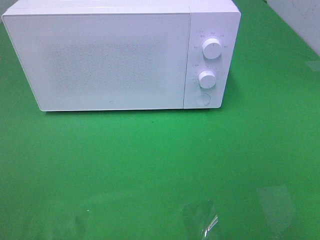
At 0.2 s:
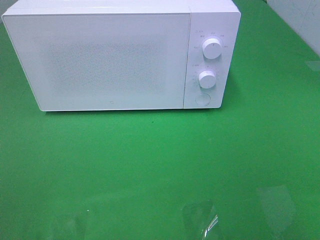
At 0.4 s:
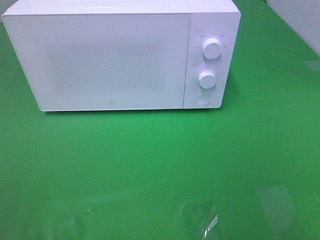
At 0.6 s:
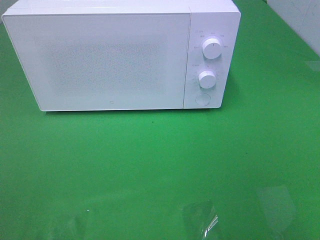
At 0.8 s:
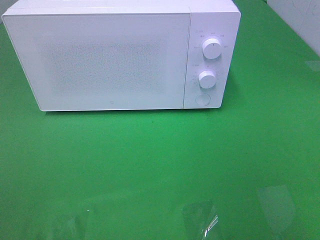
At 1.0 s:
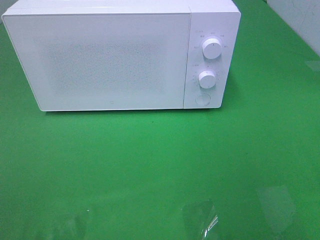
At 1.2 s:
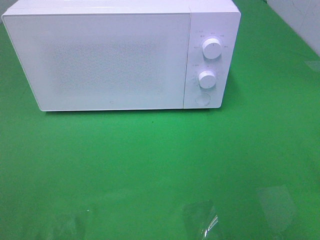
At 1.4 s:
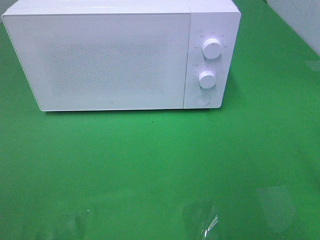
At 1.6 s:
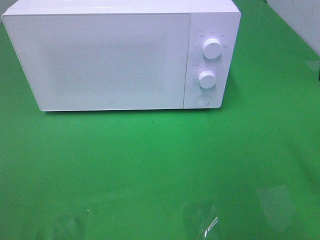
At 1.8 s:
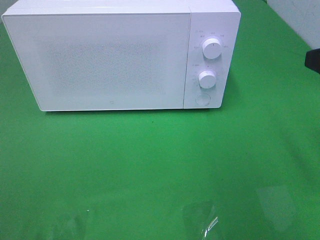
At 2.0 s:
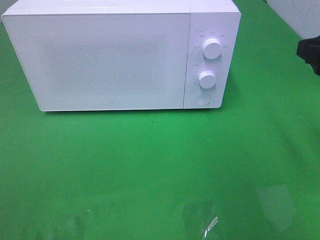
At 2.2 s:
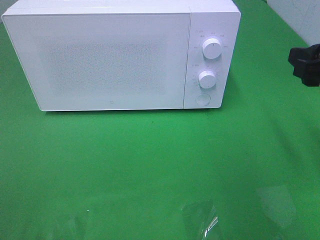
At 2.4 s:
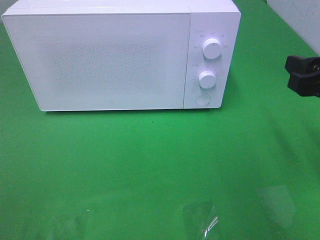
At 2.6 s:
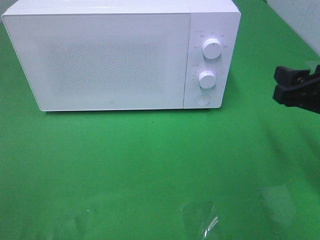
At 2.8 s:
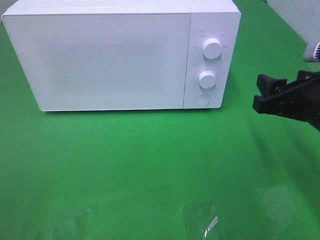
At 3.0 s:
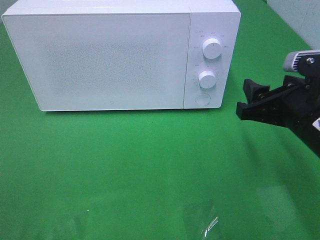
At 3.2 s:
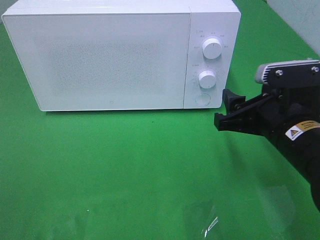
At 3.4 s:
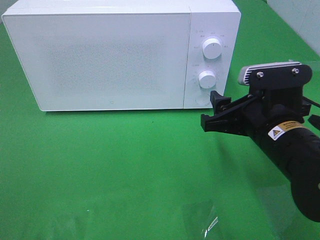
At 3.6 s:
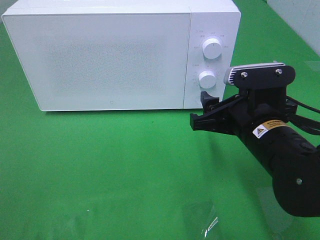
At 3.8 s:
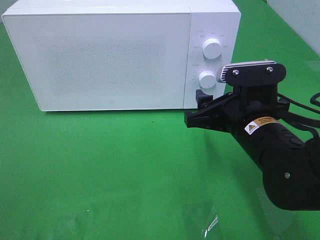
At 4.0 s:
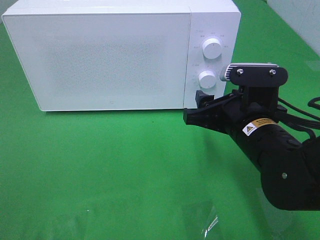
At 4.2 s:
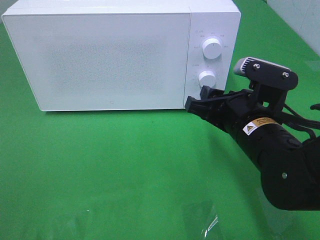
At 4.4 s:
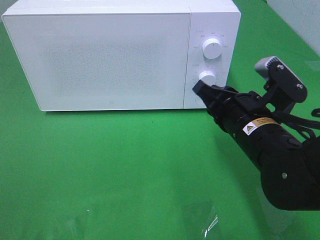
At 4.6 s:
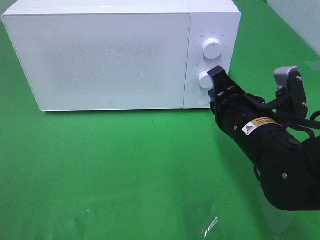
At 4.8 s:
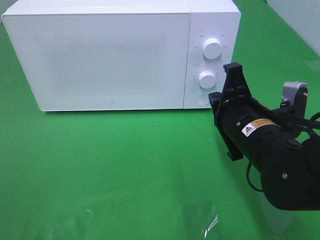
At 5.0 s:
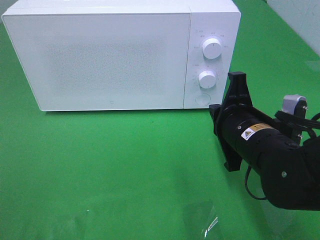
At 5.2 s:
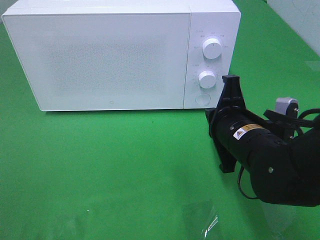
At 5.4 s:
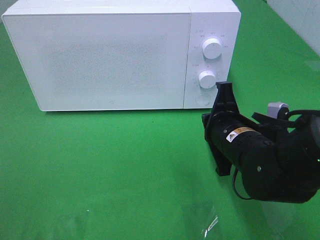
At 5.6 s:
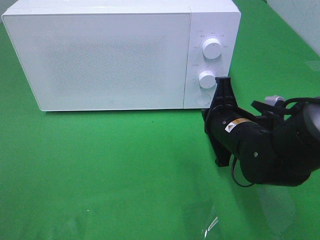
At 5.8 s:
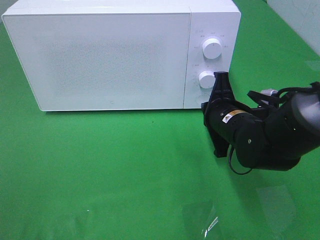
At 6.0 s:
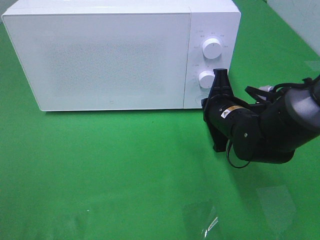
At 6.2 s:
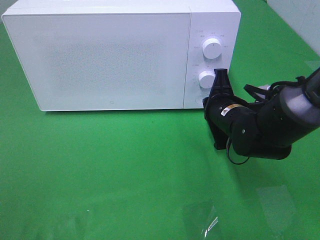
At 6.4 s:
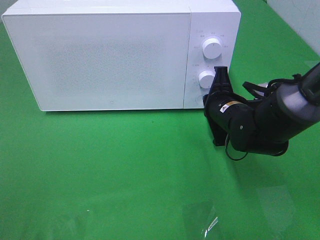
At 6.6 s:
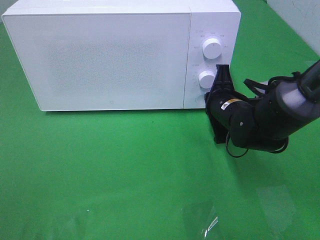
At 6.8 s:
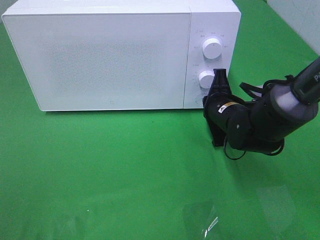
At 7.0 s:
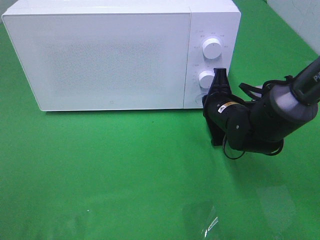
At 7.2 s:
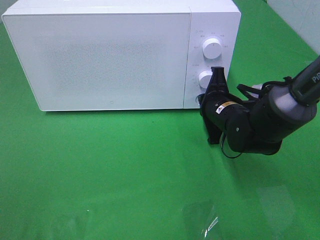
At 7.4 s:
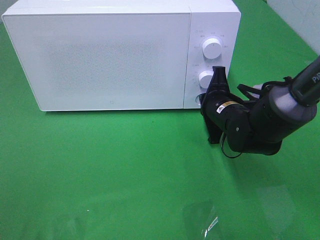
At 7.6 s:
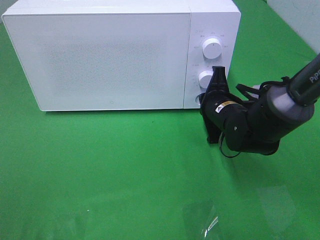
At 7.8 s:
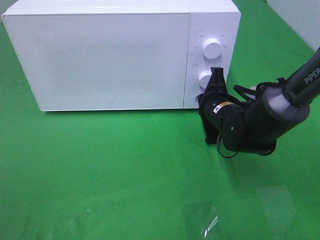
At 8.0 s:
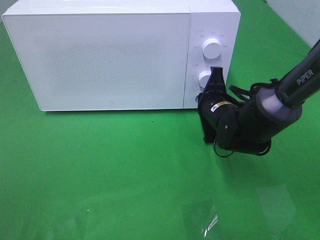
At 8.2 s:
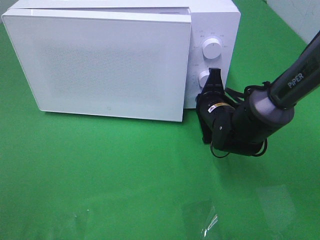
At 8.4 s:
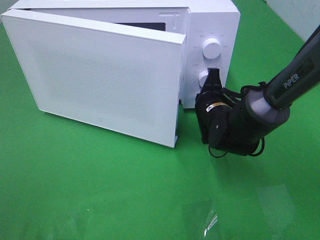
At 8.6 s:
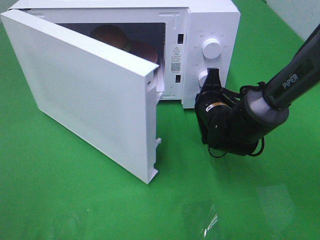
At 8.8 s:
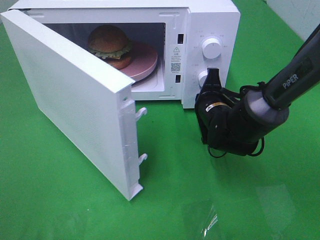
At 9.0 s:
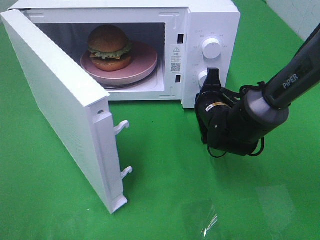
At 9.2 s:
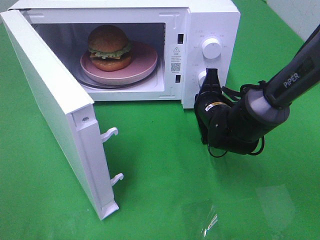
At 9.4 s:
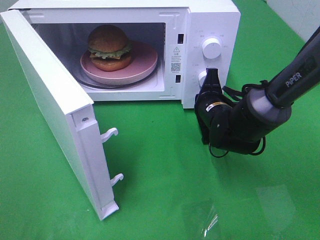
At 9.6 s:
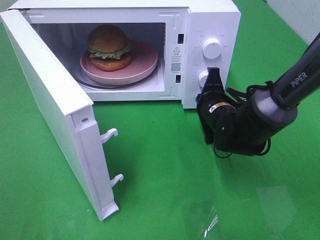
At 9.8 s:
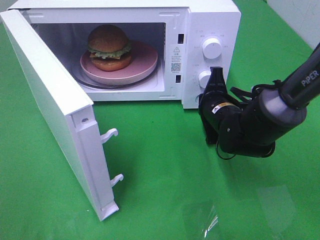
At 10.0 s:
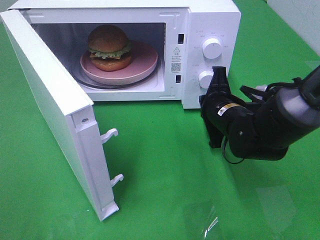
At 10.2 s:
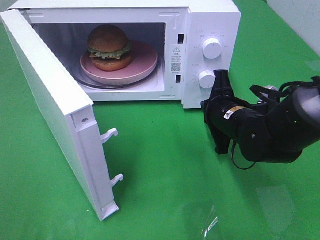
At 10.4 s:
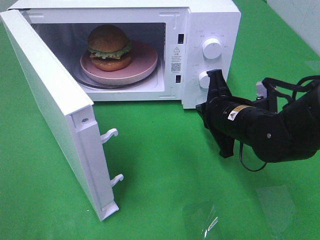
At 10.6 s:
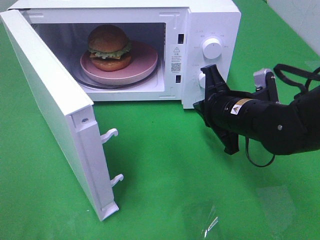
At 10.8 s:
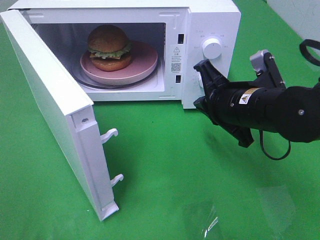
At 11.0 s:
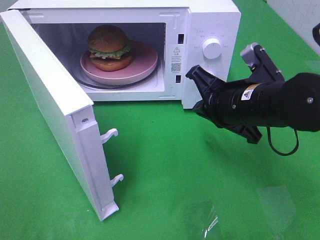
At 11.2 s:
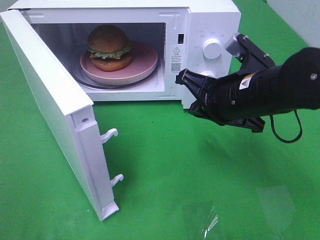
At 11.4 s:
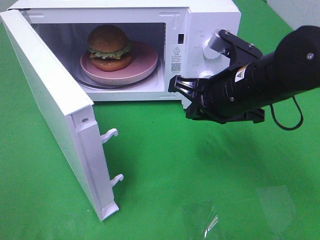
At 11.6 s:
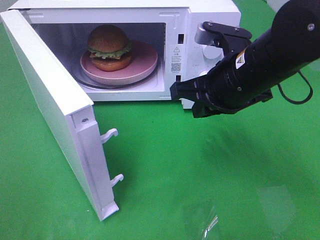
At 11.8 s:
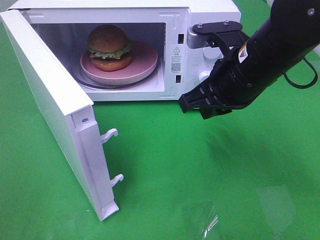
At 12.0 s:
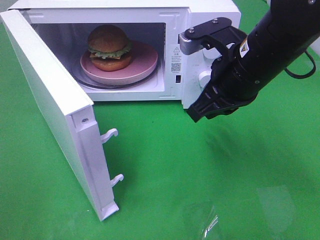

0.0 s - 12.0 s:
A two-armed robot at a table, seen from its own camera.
Task of the whole recording: Heat the burger.
Step, 0.0 s - 10.0 s: Right hand: press the switch.
1.6 s - 3.0 s: The right gripper goes roughly 15 cm downward, to the left and forward.
3.0 s - 4.4 s: The right gripper heads to the left, covering roughly 5 cm, and closes up.
4.4 s - 6.0 s: The right gripper shifts some 10 cm forward and downward.
6.0 s - 7.6 s: The grippers make only small movements.
9.0 s - 10.4 s: The right gripper shifts roughly 5 cm backward.
10.4 s - 12.0 s: The right gripper is displaced upward by roughly 10 cm.

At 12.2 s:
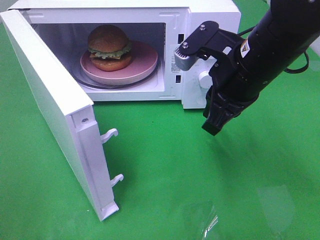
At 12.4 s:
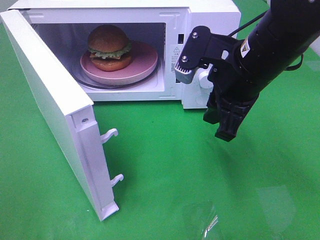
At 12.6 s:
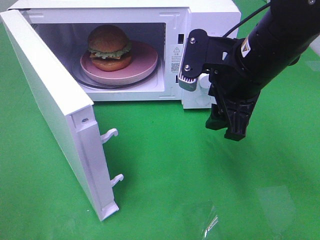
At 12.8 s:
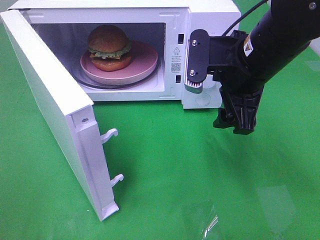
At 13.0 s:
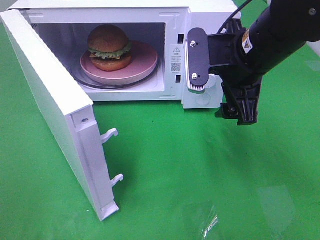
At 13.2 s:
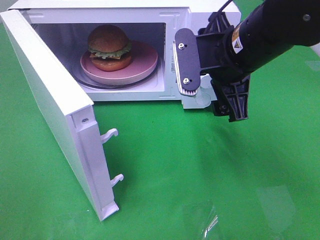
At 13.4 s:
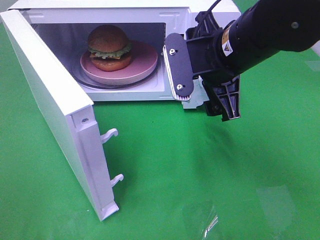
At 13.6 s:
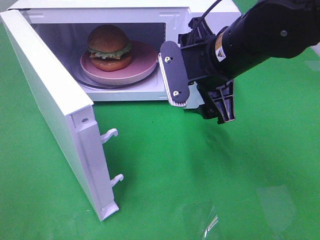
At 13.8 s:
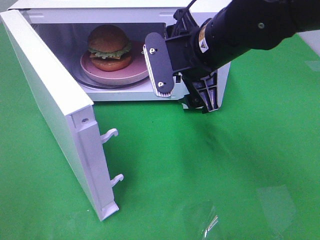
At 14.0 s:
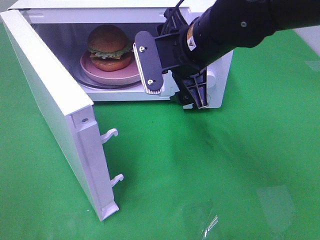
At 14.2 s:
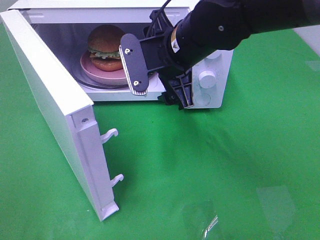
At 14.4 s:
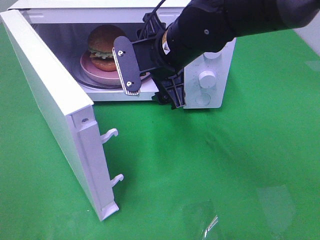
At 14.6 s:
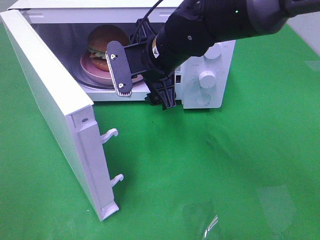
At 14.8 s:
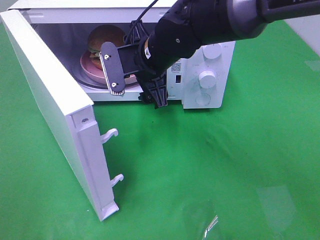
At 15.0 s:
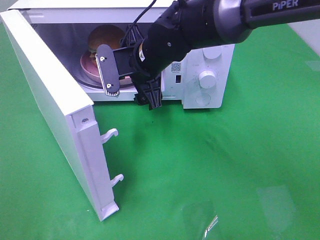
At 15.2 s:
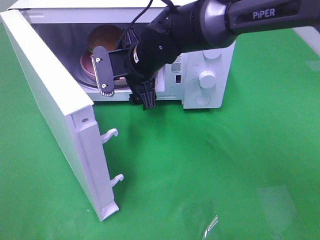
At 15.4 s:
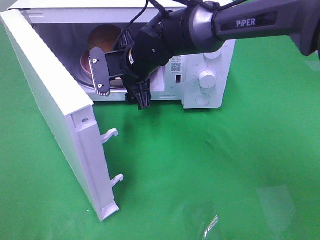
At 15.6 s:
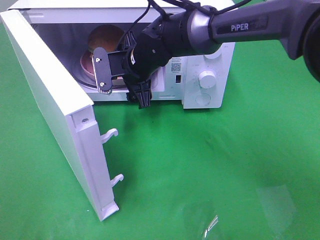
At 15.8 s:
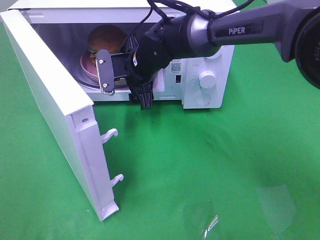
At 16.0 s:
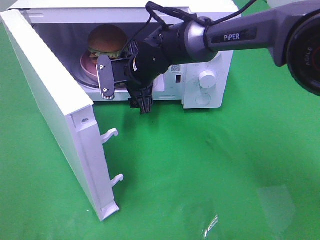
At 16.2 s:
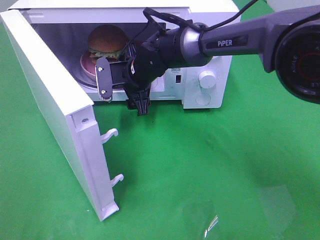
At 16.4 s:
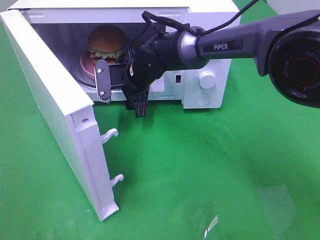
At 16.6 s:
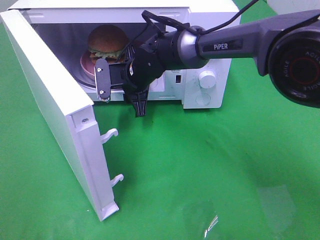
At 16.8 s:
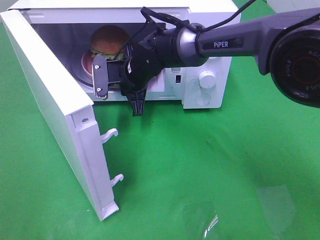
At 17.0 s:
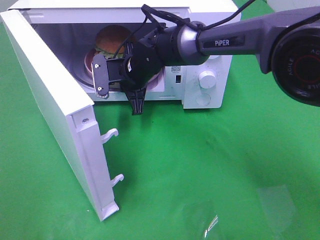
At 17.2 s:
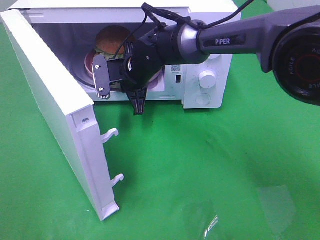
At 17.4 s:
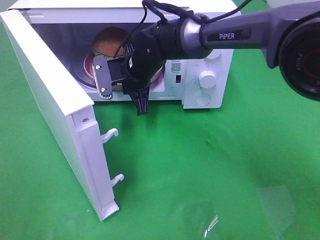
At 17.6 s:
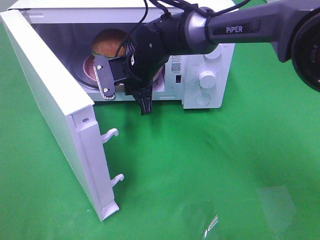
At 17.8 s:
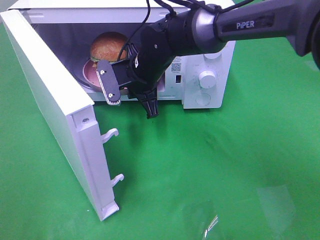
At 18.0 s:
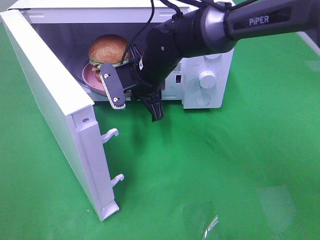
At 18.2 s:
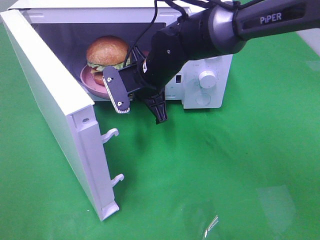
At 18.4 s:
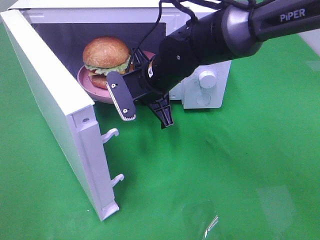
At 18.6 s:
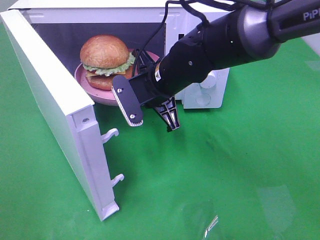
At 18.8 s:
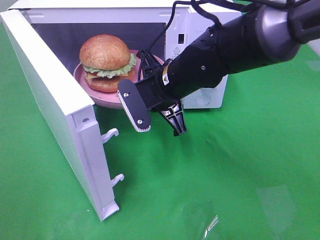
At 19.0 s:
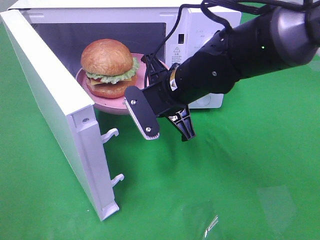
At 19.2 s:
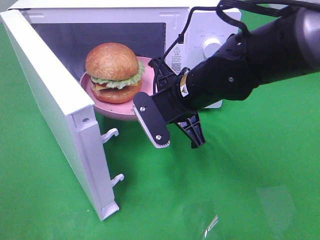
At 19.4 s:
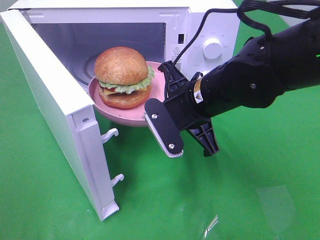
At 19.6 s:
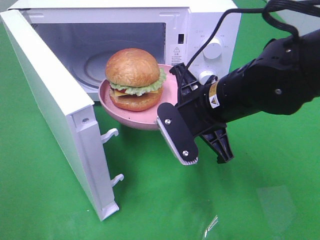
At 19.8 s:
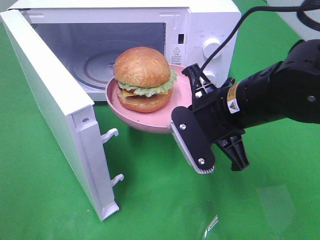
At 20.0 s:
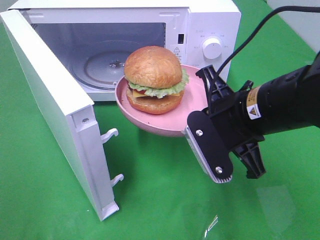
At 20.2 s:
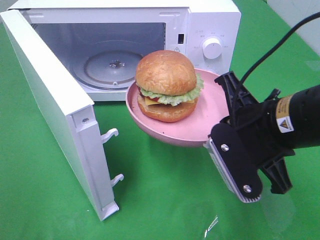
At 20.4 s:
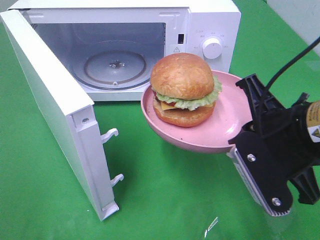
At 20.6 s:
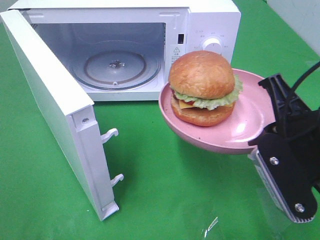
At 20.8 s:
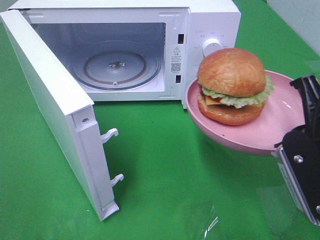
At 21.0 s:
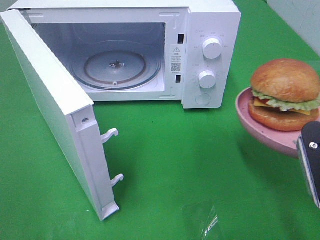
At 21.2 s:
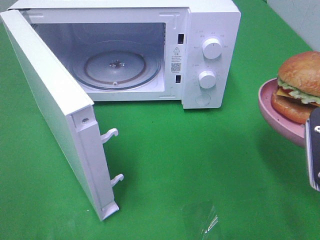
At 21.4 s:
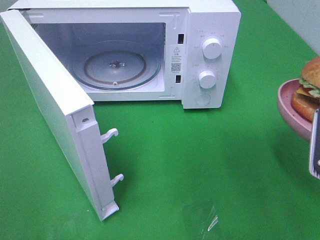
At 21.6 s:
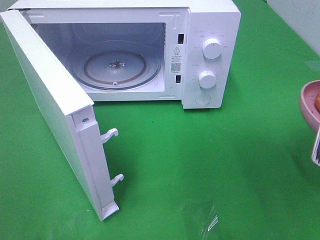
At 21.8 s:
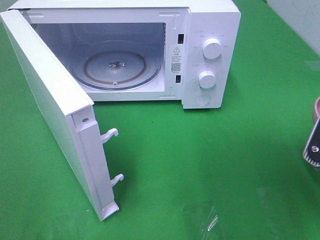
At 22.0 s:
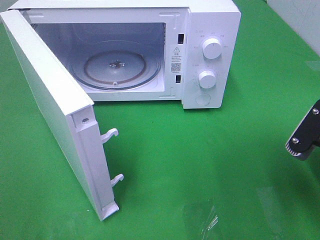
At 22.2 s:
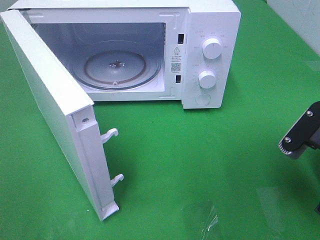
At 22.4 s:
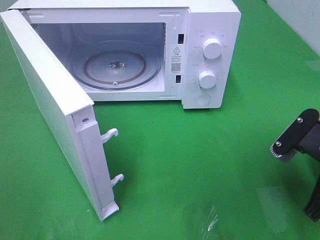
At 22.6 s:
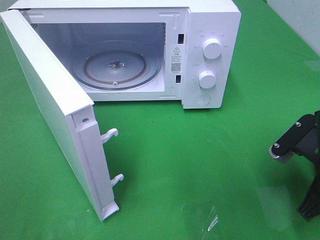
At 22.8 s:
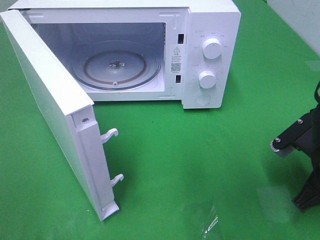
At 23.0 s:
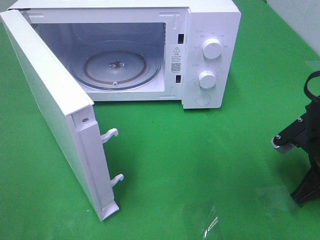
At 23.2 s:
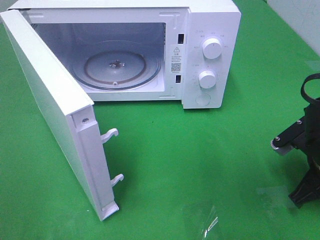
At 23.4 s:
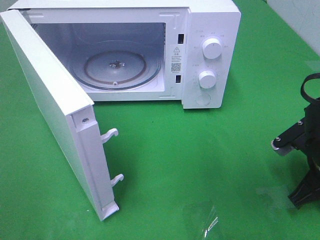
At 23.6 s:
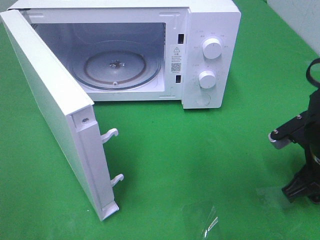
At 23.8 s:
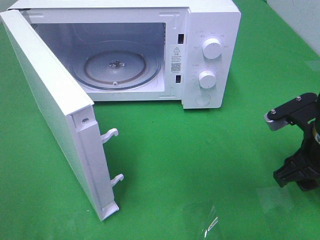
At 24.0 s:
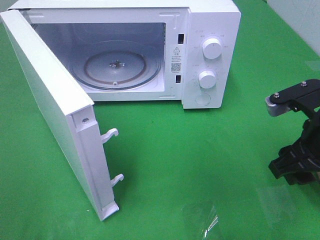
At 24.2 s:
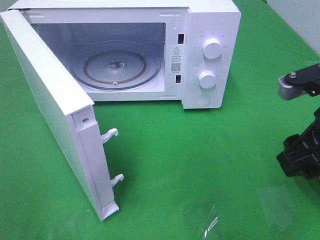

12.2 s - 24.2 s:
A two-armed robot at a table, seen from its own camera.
Task of the whole recording: Heat the burger.
Step, 12.2 s - 17.0 s: Right hand: grab the plate with the hamburger.
Step, 17.2 s - 23.6 s: Right hand: place the plate on the table.
12.2 s - 13.8 s: The right gripper moves some 5 cm, and opens up.
13.8 s - 15.2 s: The right gripper travels to the left, forward and downward by approximately 15 cm.
15.2 s - 16.6 s: The right gripper heads downward, covering approximately 5 cm, and closes up.
16.6 s - 18.2 s: The right gripper heads backward, covering some 5 cm, and closes.
18.2 s - 19.8 s: The right gripper goes roughly 15 cm backward and to the right.
19.8 s - 21.2 s: The right gripper is displaced to the right and backward by about 15 cm.
21.2 s - 22.6 s: The right gripper is displaced downward by some 10 cm.
22.6 s - 24.2 s: The right gripper heads upward, covering about 10 cm, and opens its fingers.
